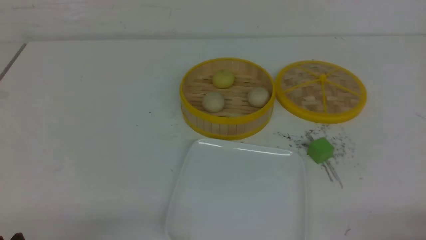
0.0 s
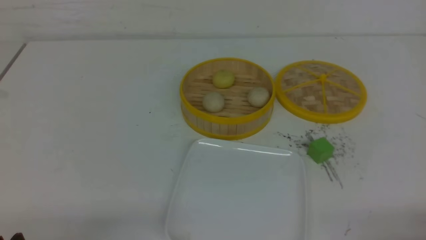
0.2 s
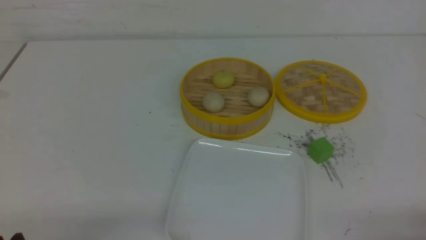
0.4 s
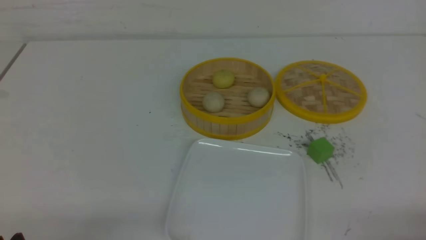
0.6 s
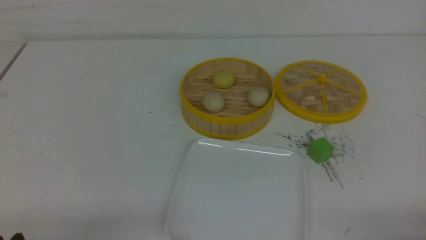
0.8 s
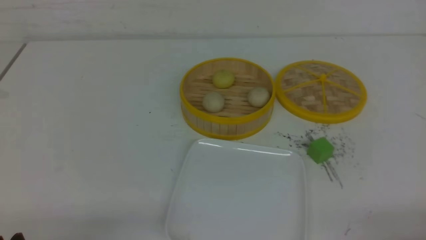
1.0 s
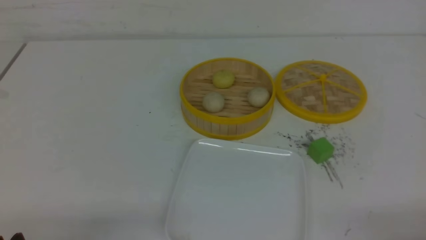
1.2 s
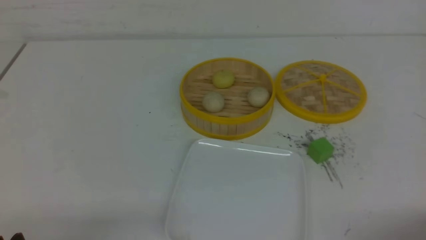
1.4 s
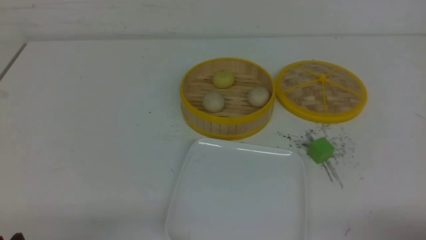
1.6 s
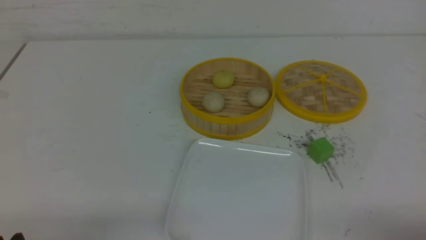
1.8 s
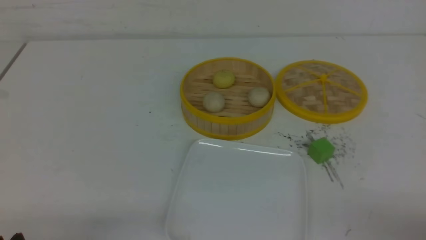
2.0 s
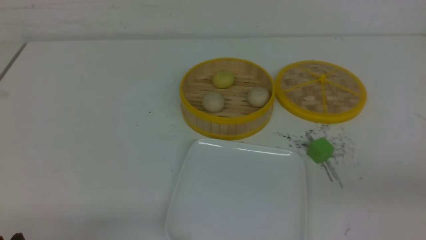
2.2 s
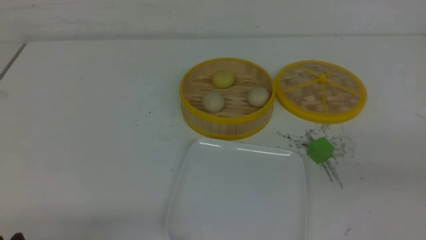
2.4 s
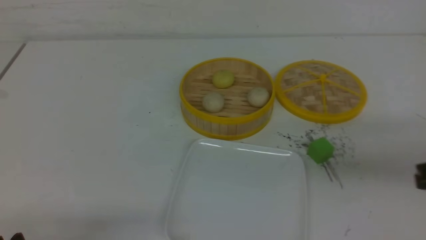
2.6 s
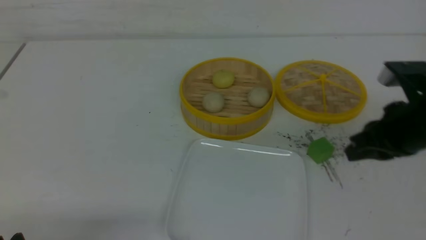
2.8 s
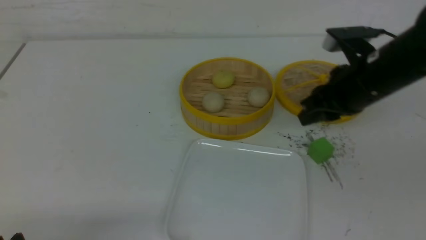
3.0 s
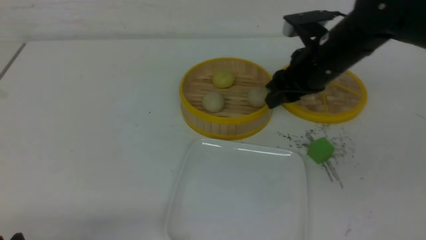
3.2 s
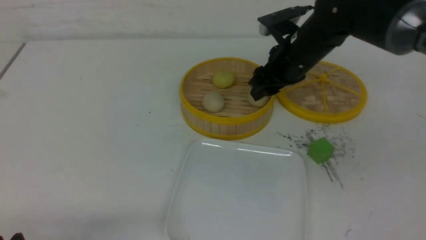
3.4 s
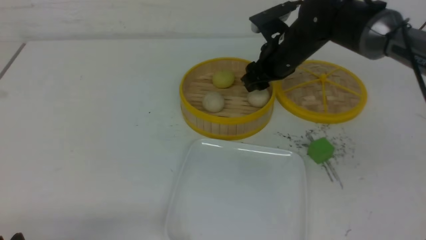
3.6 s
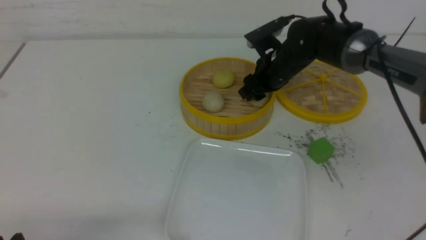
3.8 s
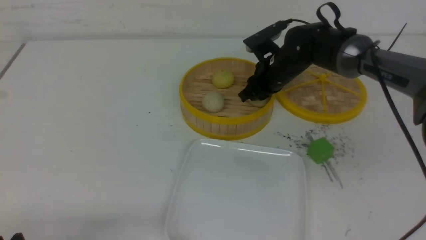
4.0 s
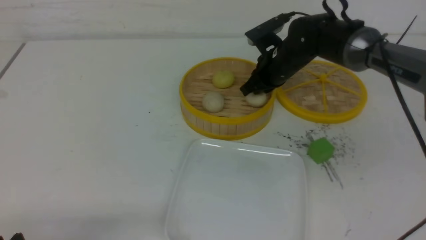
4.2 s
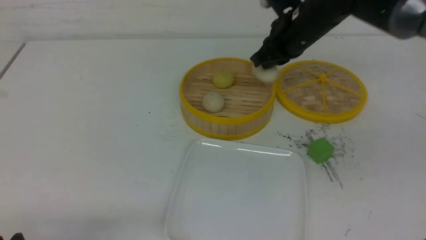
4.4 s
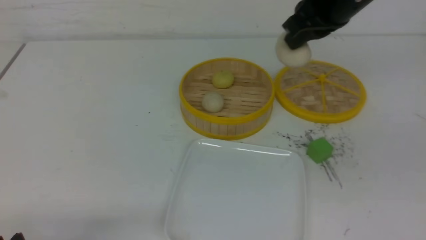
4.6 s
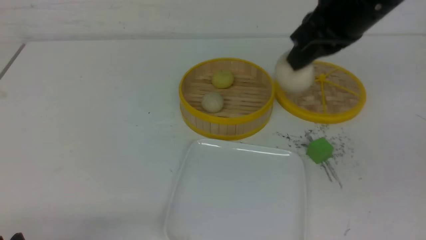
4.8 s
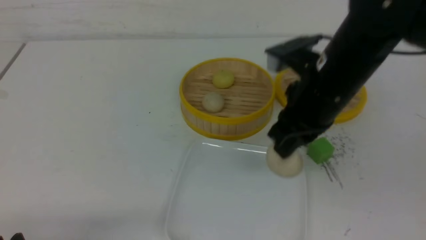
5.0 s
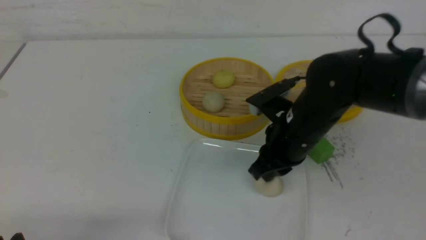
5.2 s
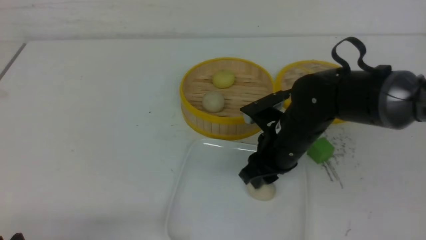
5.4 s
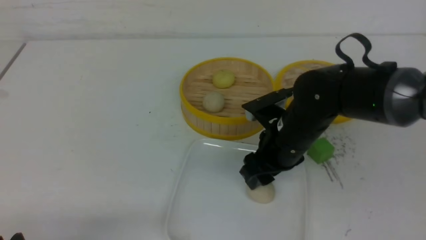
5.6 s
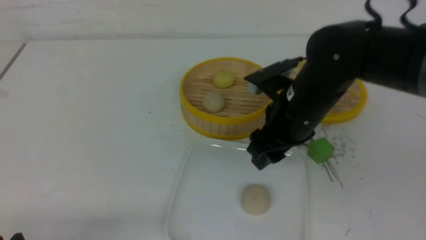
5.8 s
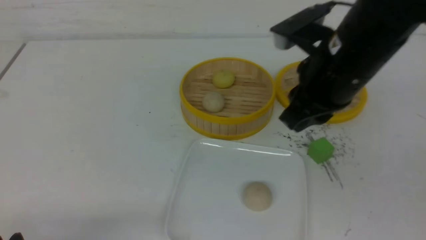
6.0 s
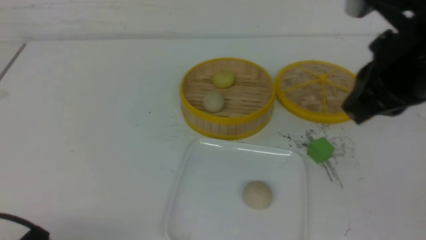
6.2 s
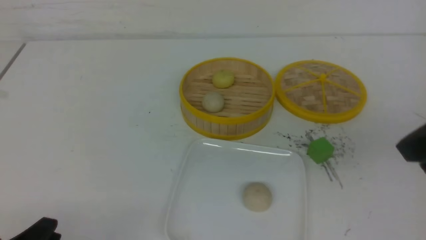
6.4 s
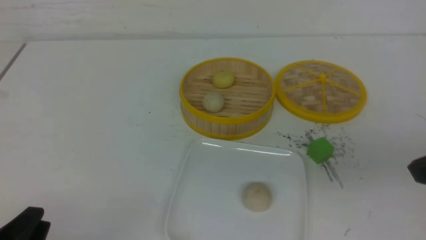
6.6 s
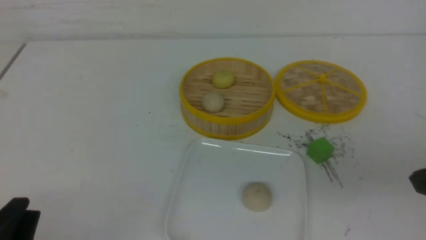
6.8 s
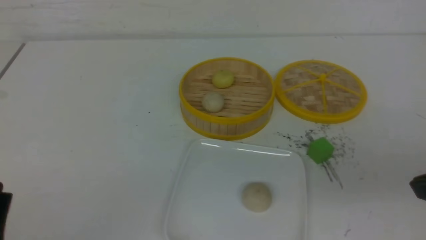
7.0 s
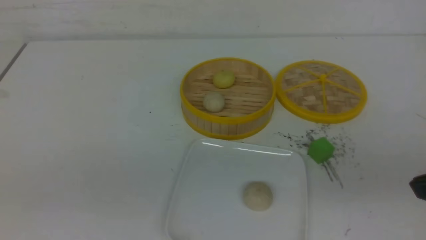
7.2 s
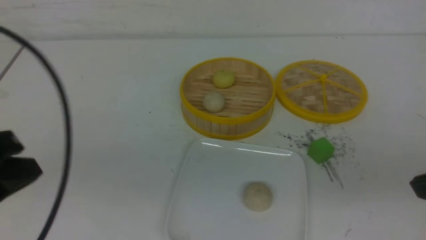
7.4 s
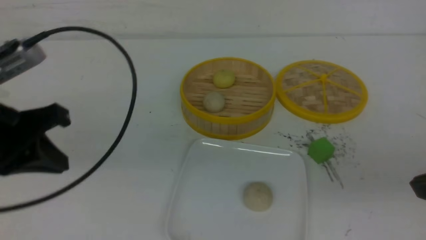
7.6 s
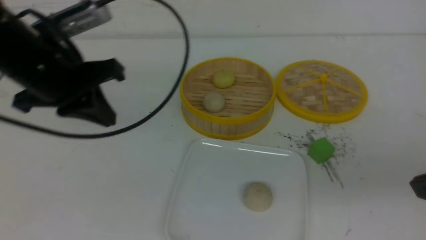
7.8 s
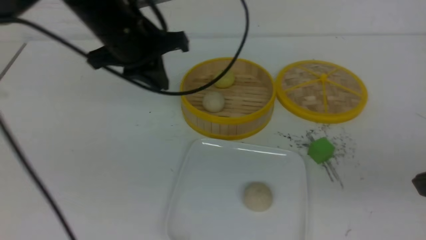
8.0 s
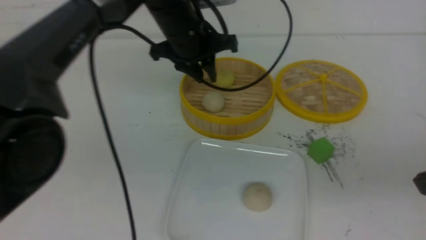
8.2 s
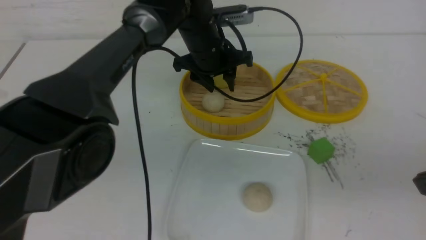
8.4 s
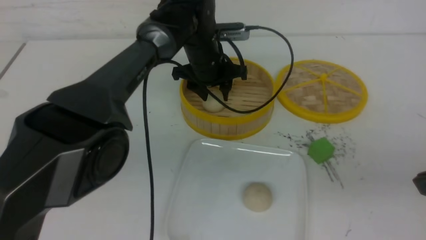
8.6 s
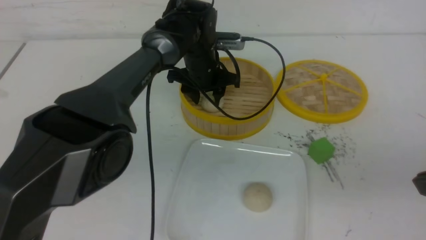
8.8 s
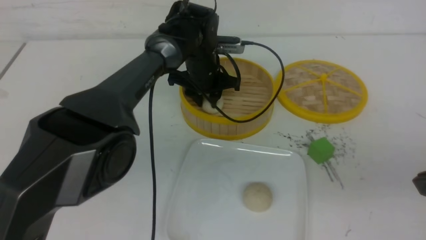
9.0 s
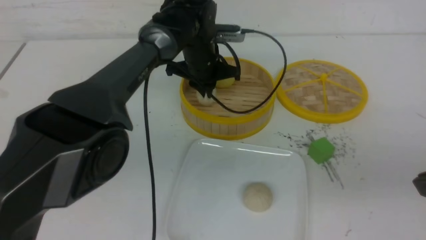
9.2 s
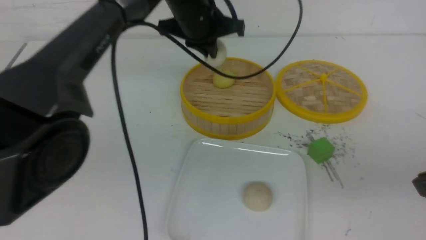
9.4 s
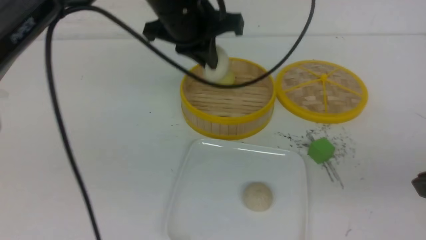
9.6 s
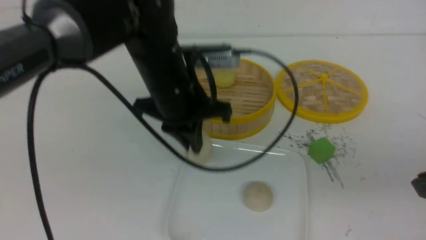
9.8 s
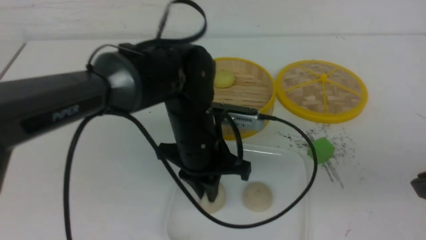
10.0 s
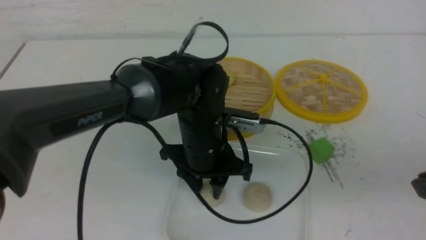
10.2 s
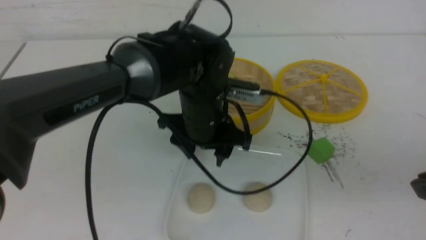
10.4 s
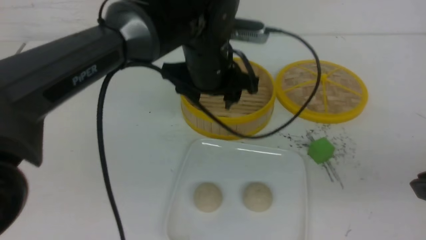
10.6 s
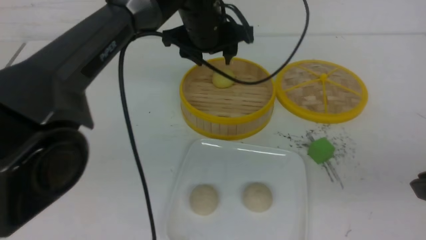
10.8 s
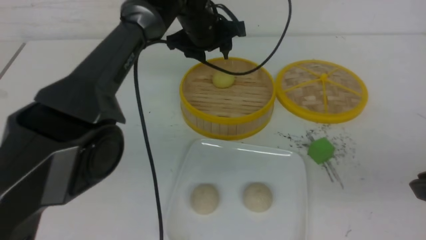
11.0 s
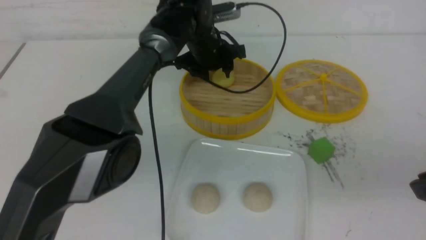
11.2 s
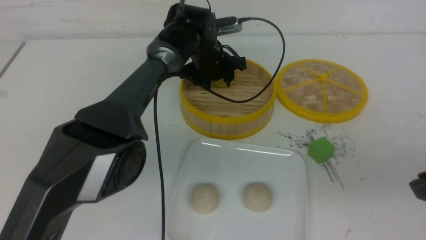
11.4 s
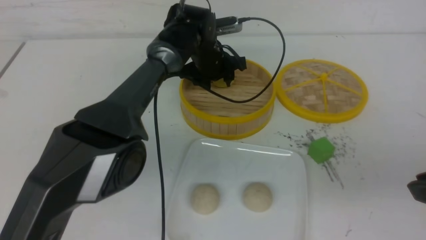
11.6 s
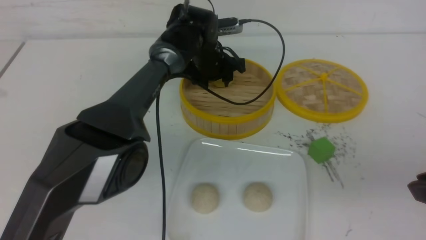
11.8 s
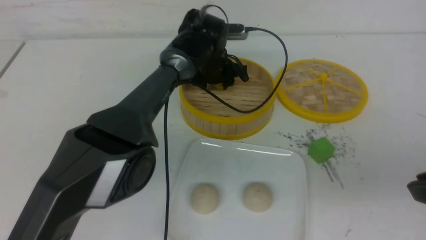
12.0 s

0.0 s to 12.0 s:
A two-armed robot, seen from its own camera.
Step, 0.0 to 4.0 s: use the right arm to grab the steamed stuffed bun that is closest to it.
Step, 4.4 to 5.6 s: use the right arm to put the steamed stuffed bun into the plate.
Step, 5.8 to 9.0 s: use the left arm to grab the steamed stuffed bun that is closest to it.
Step, 9.2 to 10.0 s: use the left arm to put the steamed stuffed bun into the plate.
1.6 to 3.0 s: The right gripper shifts roughly 30 cm forward, to the left and upward, and closes and opens again.
3.0 to 4.4 s: The right gripper goes roughly 10 cm forward and to the left, and closes.
4.4 to 6.0 s: The right gripper swings up and down, roughly 20 cm each way, with 2 reversals, and opens and closes again.
6.0 to 7.6 s: The left gripper moves upward and forward, approximately 25 cm, and closes up; the right gripper moves backward and to the right, approximately 20 cm, and closes.
7.6 to 9.0 s: The left gripper goes about 35 cm forward, to the right and downward, and opens.
9.0 to 10.4 s: The left gripper is displaced backward by roughly 15 cm, and opens.
10.4 to 12.0 s: The left gripper moves forward, about 20 cm.

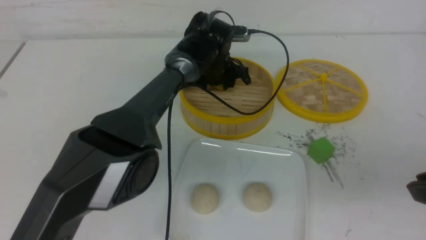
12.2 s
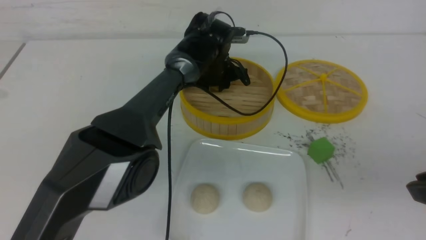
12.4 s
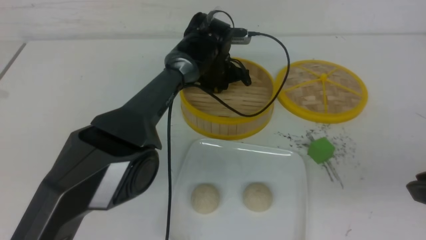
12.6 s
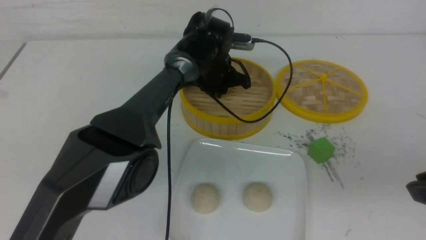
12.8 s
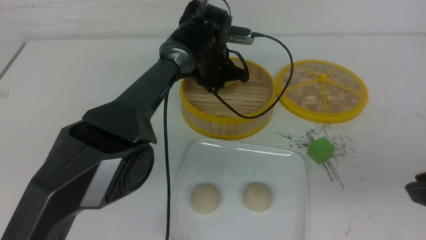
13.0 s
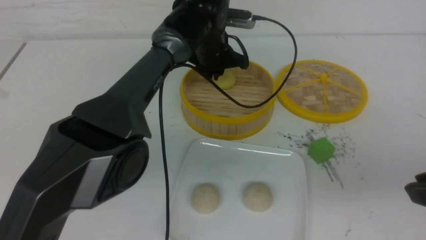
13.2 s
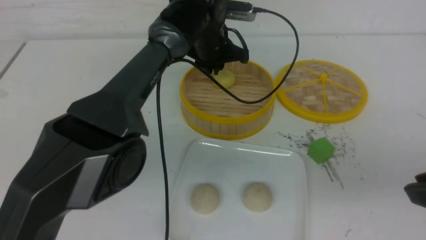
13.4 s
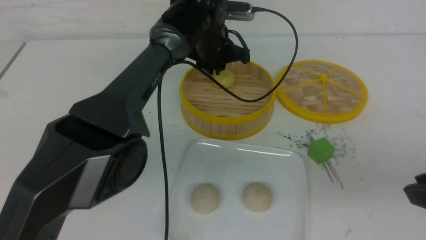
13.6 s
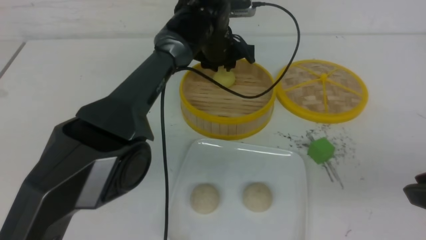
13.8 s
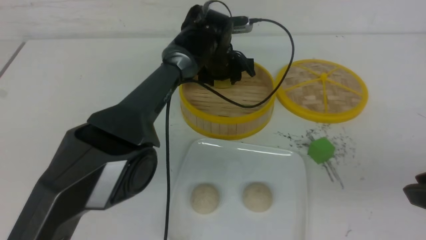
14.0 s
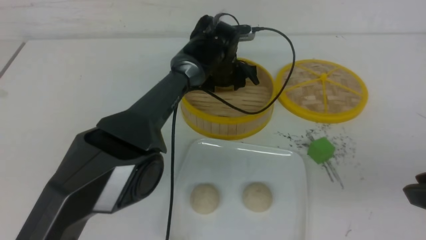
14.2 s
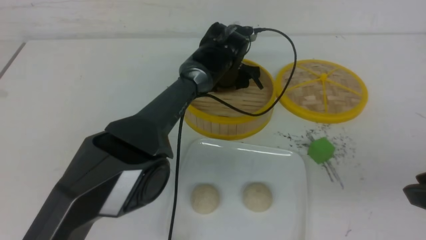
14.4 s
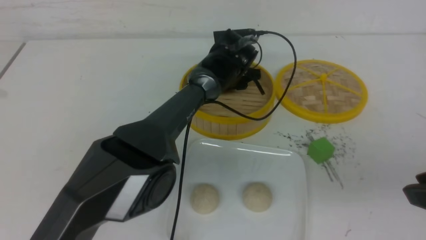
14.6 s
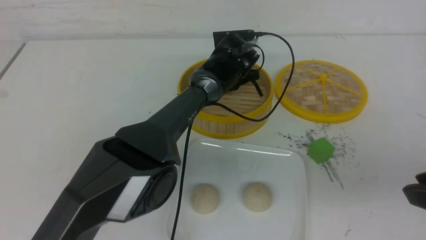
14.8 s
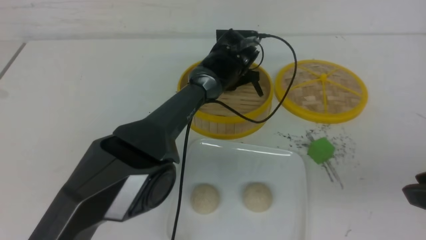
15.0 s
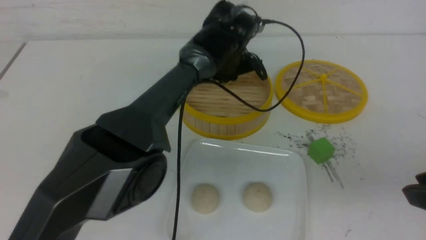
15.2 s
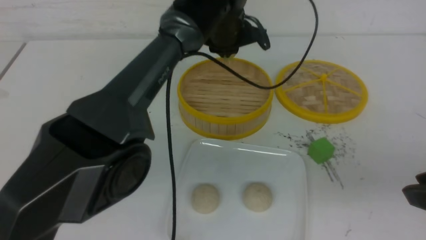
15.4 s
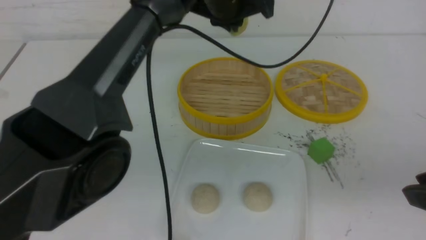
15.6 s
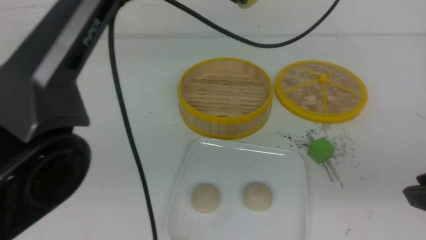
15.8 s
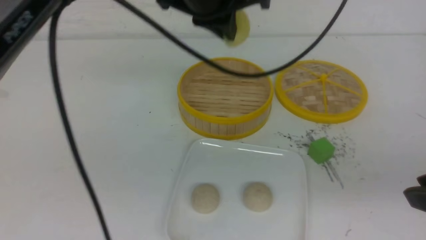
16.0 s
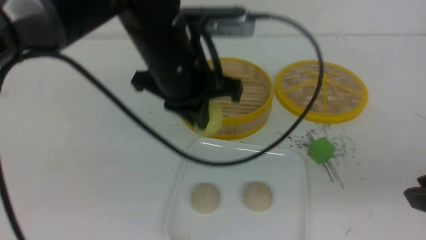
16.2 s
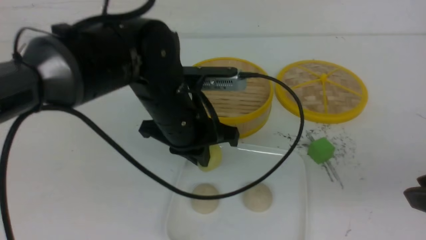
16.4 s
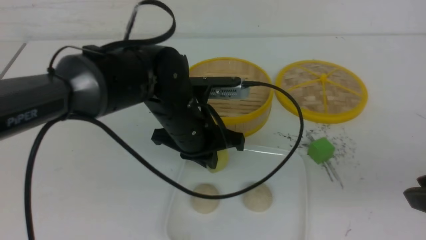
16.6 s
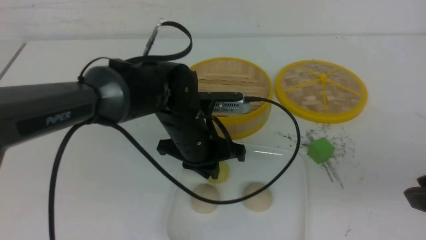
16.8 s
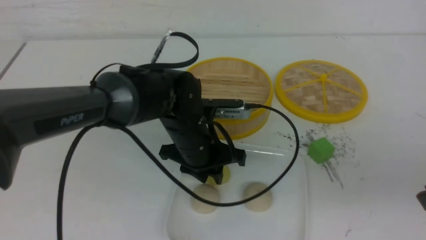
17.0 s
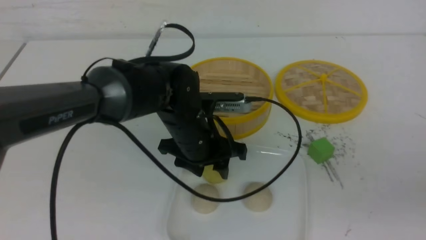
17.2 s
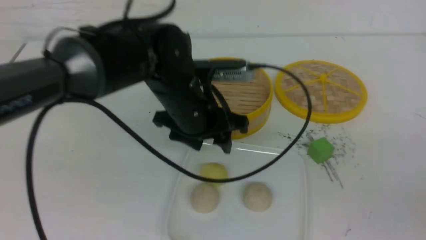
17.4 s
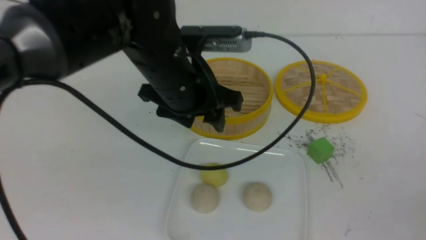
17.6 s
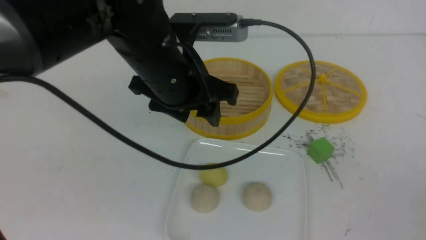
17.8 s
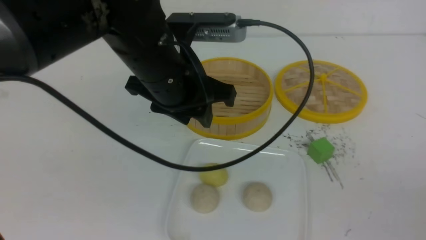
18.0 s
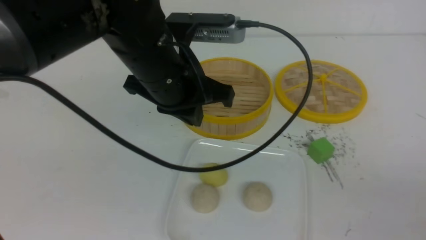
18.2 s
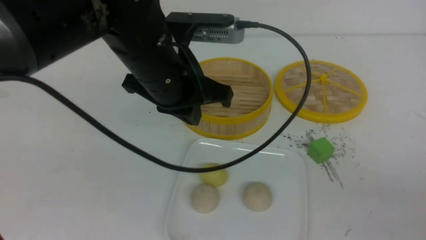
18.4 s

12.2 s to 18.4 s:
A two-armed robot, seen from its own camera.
Step, 12.2 to 14.8 s: use the left arm to grab the steamed stuffed bun that is closest to it.
Step, 15.2 to 17.2 s: use the left arm to put the steamed stuffed bun into the plate.
12.2 to 13.8 s: The left gripper closes and opens again.
13.8 to 15.4 s: The left gripper moves upward, some 10 cm, and closes up.
15.4 to 16.8 s: The left gripper shifts about 20 cm backward, downward and to the left.
16.8 to 18.4 s: The right gripper goes some 10 cm backward and to the right, and closes up. Meanwhile the left gripper travels upward by some 15 cm, and opens and closes again.
